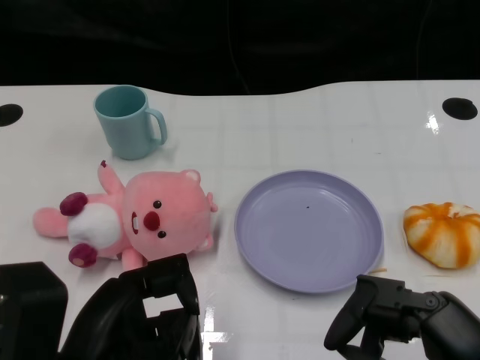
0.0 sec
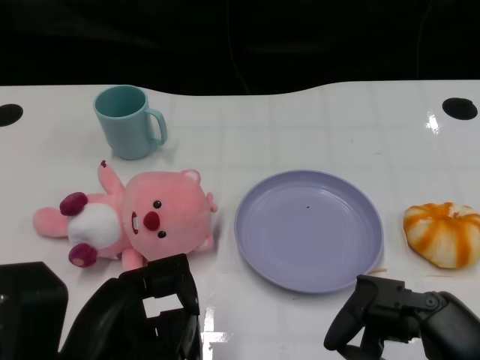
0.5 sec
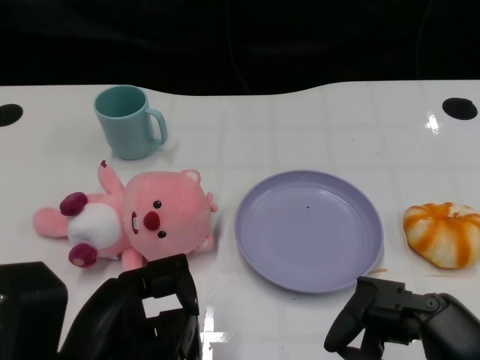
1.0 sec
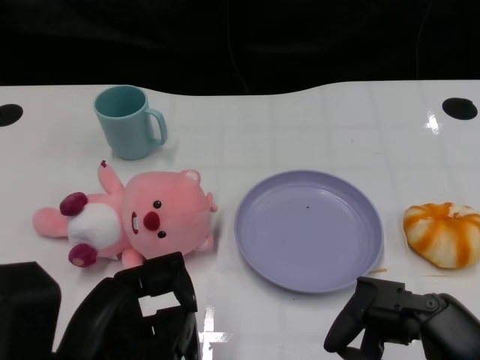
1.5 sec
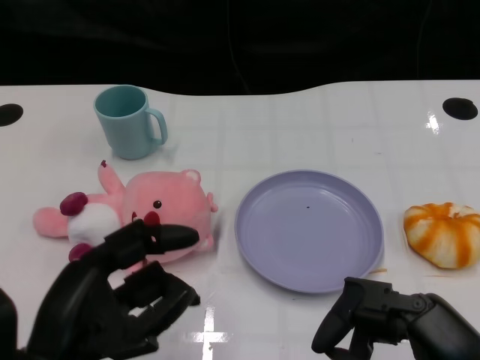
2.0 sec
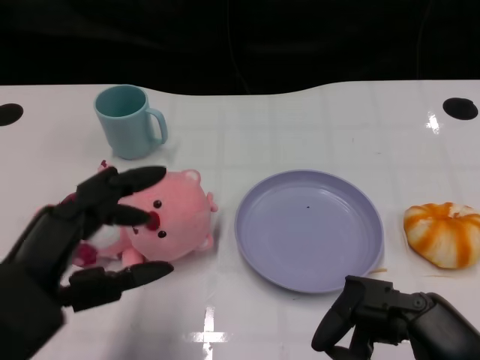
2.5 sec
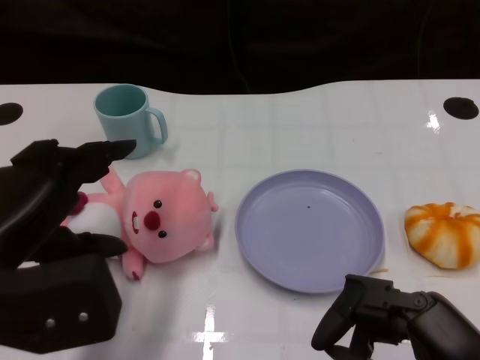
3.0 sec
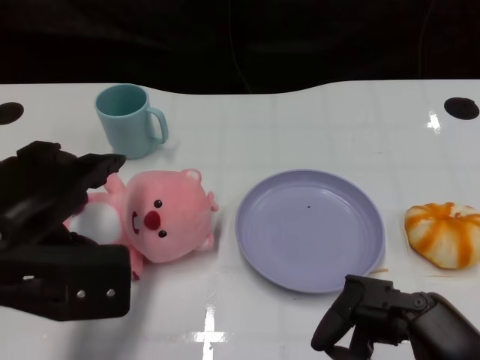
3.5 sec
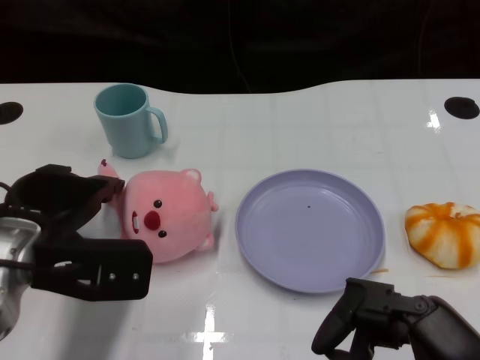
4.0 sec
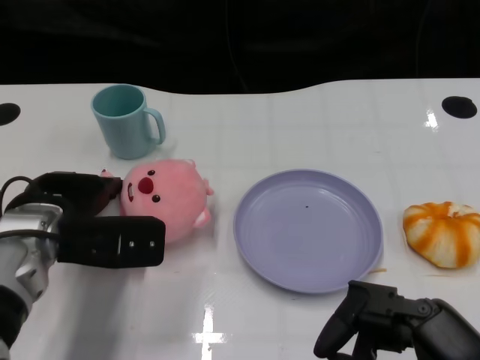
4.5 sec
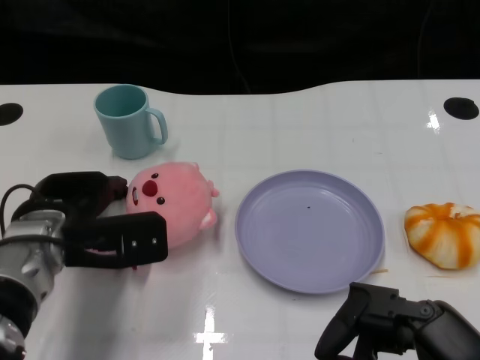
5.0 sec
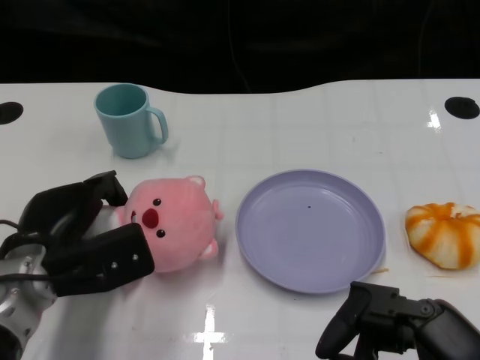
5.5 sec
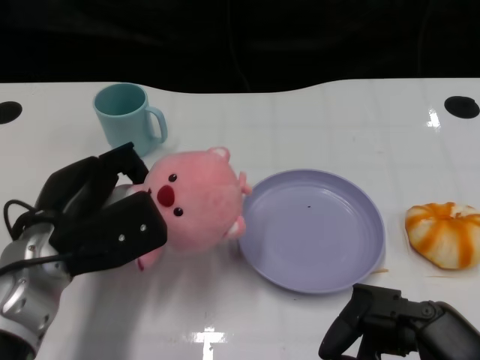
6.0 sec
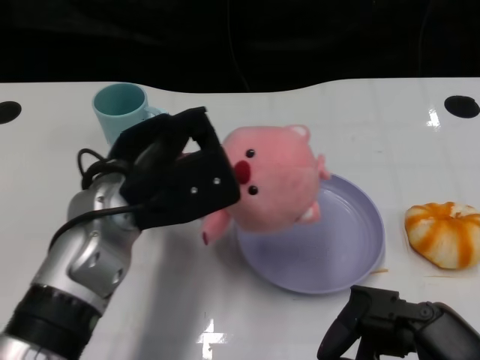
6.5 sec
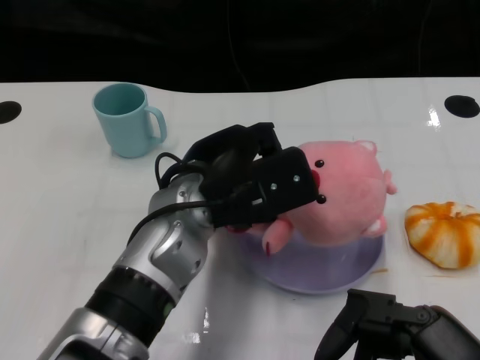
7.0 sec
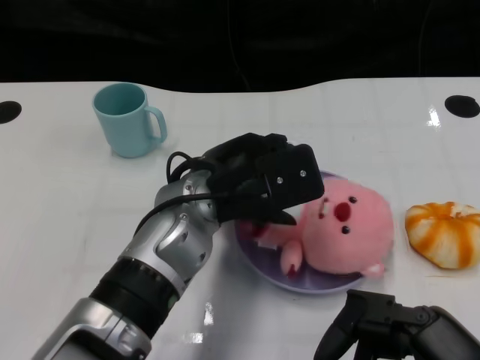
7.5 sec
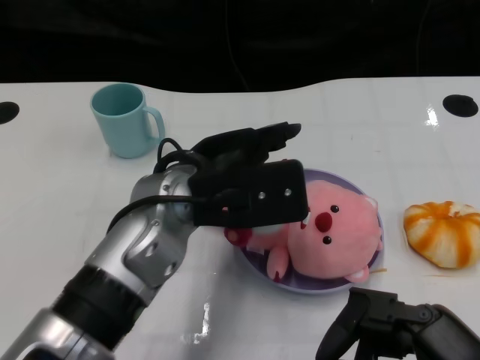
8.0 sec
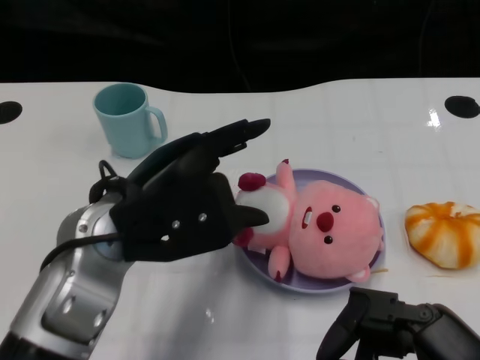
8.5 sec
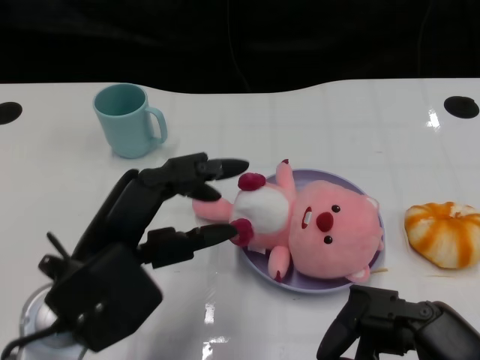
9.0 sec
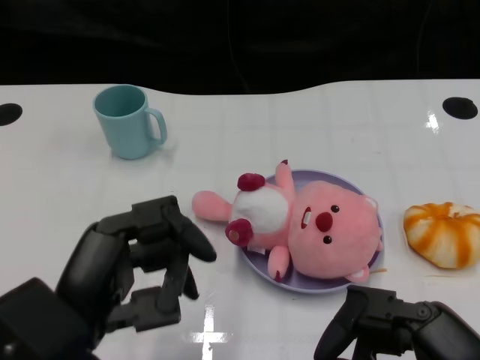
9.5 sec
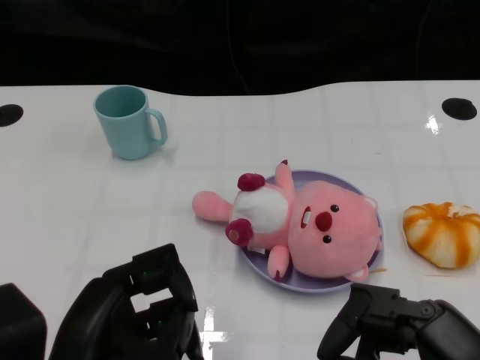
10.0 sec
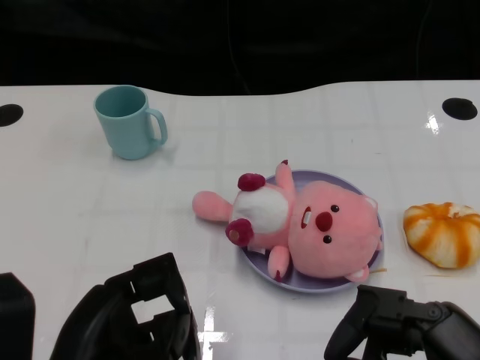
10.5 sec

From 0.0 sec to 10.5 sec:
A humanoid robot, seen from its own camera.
Task of the whole recording: Pick up the doll on one side of the plate and place it into the plate.
Step, from 1.5 sec to 5.5 sec: Grasp the pink doll with the left gripper.
Step, from 6.0 sec to 7.5 sec: Place the pink doll into the plate with the left gripper.
From 2.0 sec to 4.0 sec: The left hand moves forward, approximately 10 cm.
From 4.0 sec to 6.5 sec: The left hand moves to the right, some 10 cm.
From 6.5 sec to 8.5 sec: The left hand moves approximately 10 cm to the right and comes back.
From 8.5 sec to 10.5 sec: The left hand shifts about 15 cm backward and to the left.

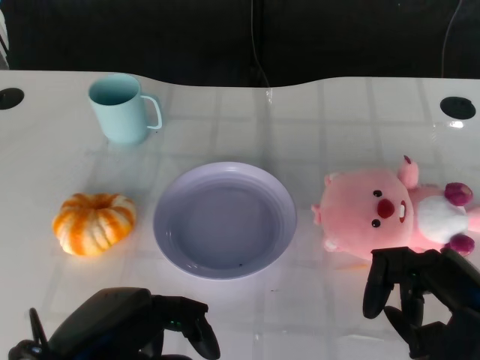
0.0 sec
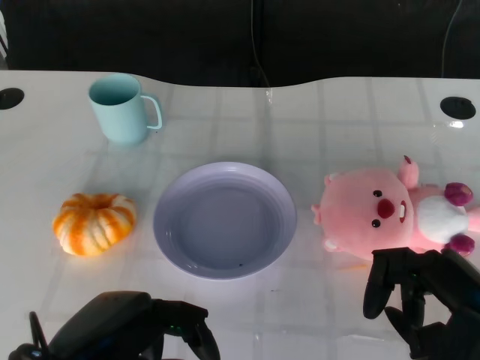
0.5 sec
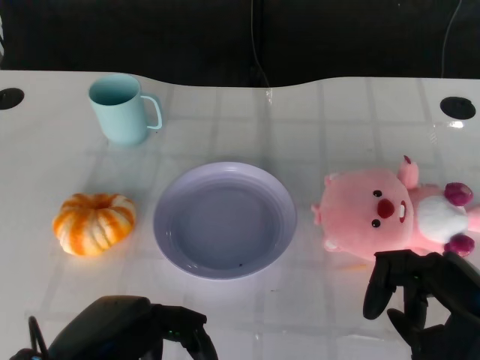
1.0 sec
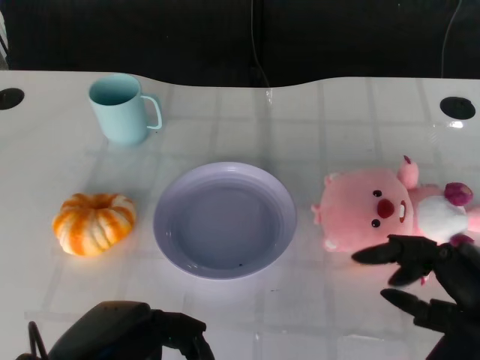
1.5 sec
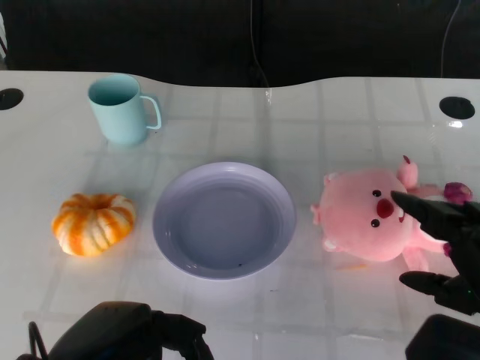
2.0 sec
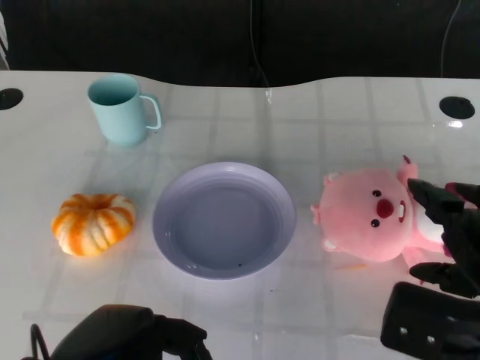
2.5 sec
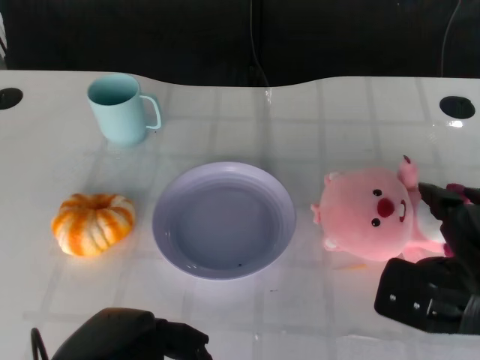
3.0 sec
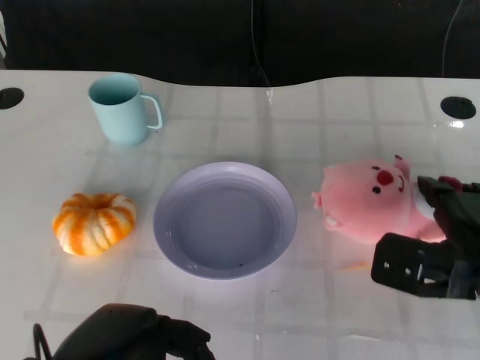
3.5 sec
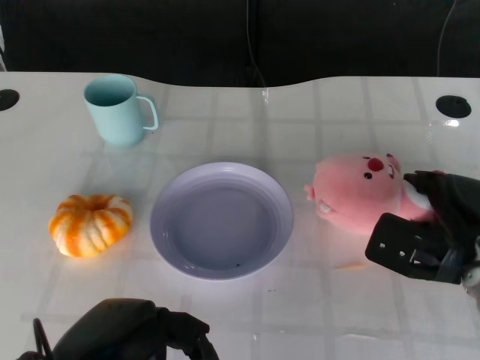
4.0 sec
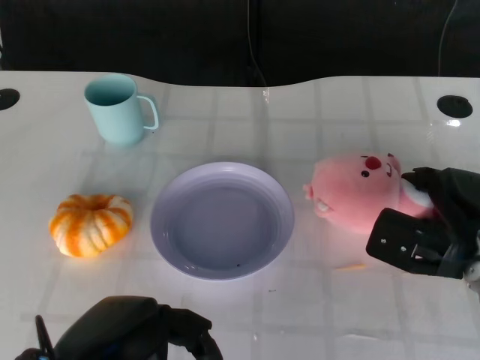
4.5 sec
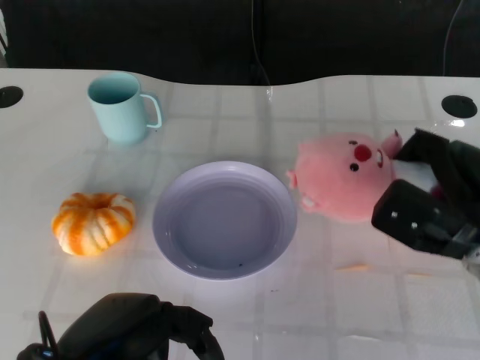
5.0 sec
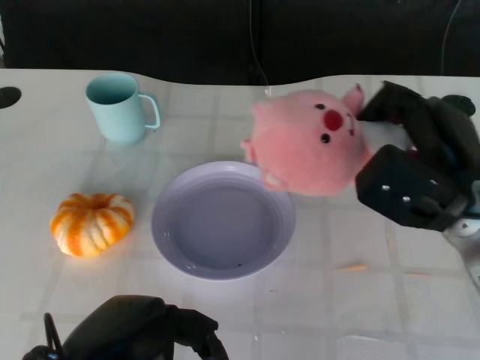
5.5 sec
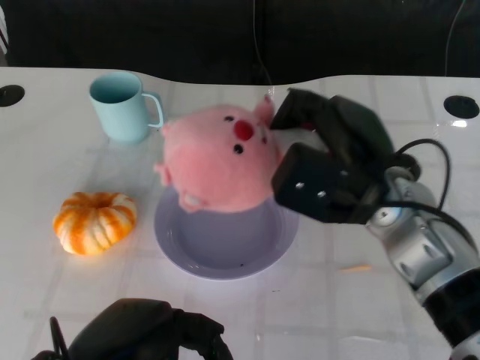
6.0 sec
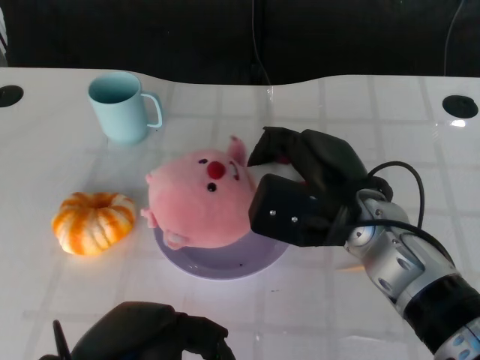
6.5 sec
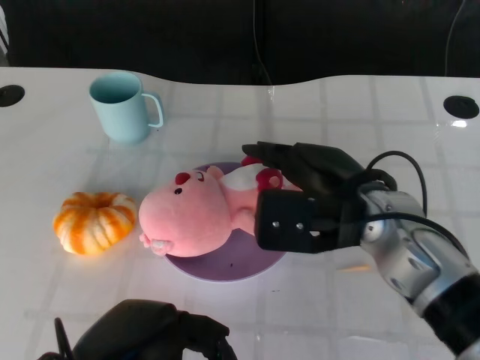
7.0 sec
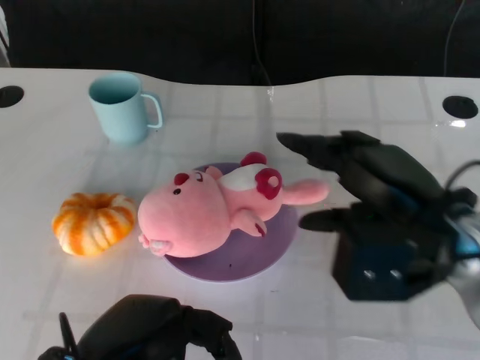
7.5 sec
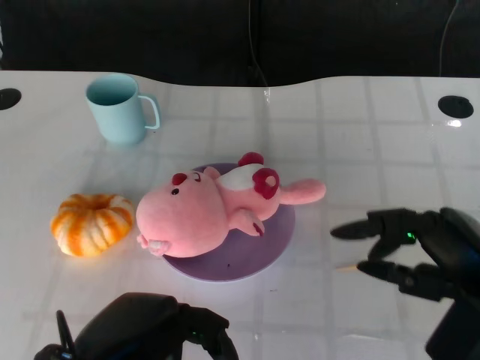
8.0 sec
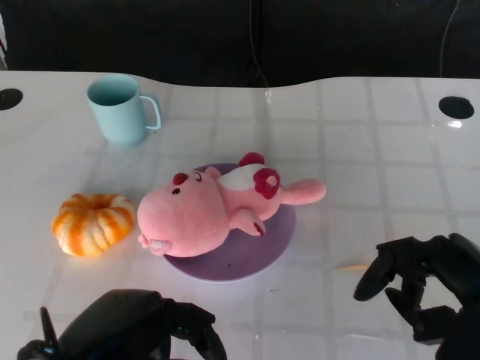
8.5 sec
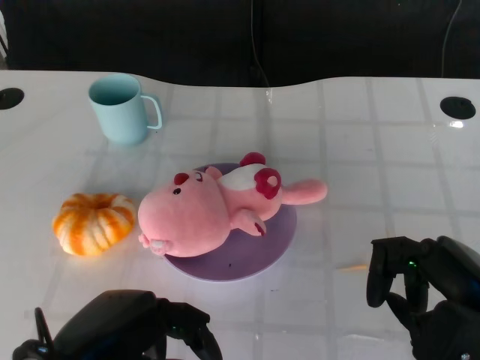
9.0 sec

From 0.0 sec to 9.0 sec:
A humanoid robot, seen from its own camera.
Task of the whole recording: Pick up the doll on the other side of the plate and place it into the plate.
Step, from 1.5 sec to 5.5 sec: Grasp the pink doll with the right gripper.
Step, from 6.0 sec to 7.0 sec: Place the pink doll into the plate with the right gripper.
From 2.0 sec to 4.5 sec: The right hand shifts roughly 15 cm forward and downward.
From 4.5 sec to 7.0 sec: The right hand travels to the left and upward by some 15 cm.
From 7.0 sec to 9.0 sec: The right hand travels to the right and backward by some 15 cm.

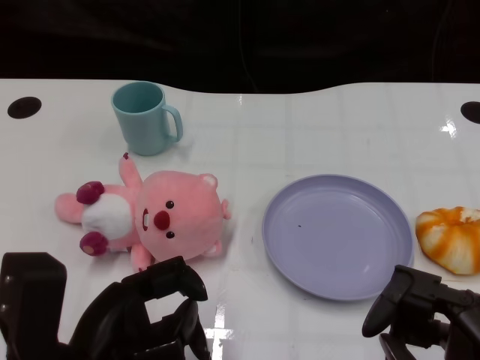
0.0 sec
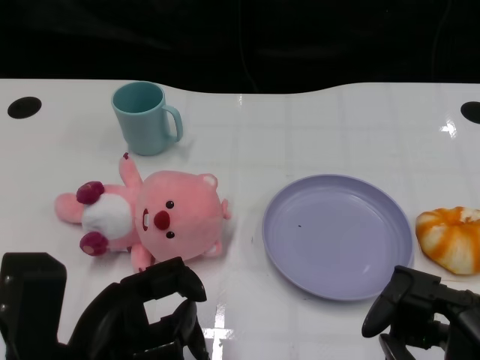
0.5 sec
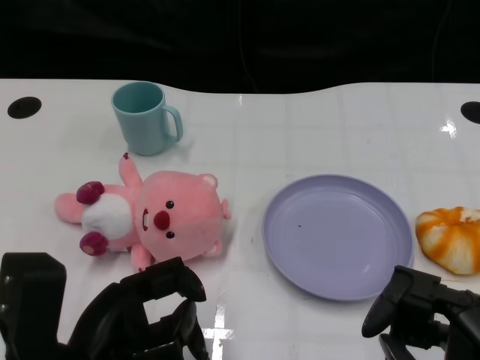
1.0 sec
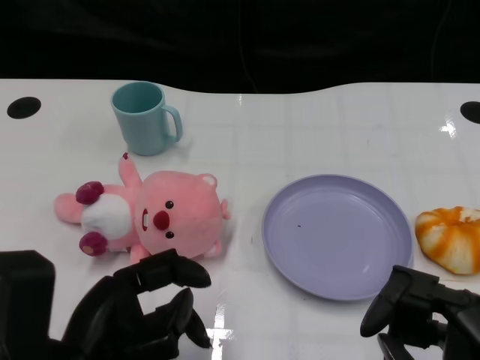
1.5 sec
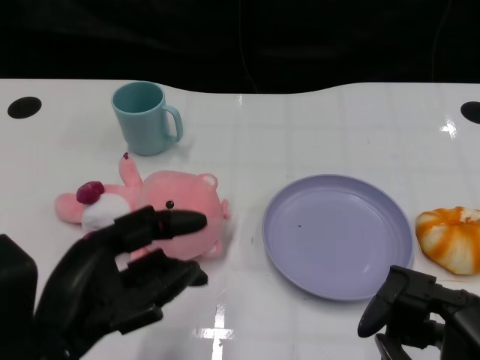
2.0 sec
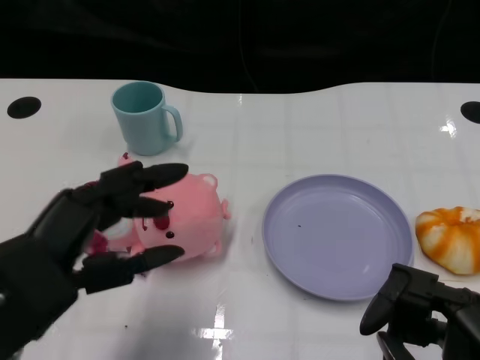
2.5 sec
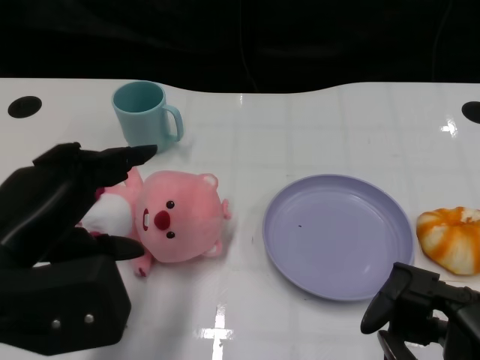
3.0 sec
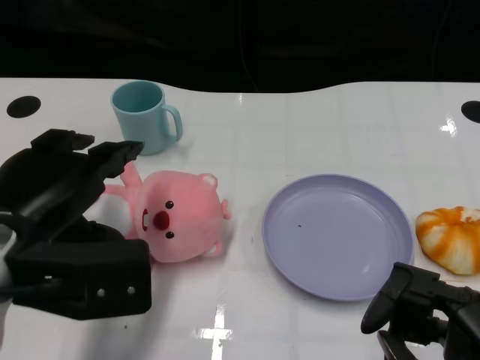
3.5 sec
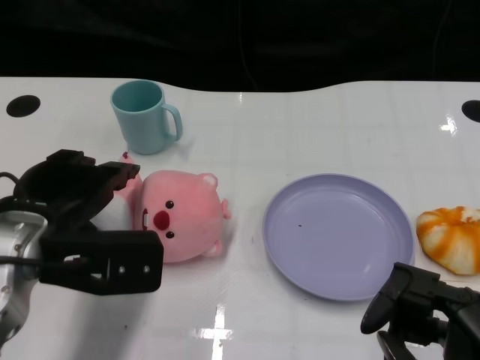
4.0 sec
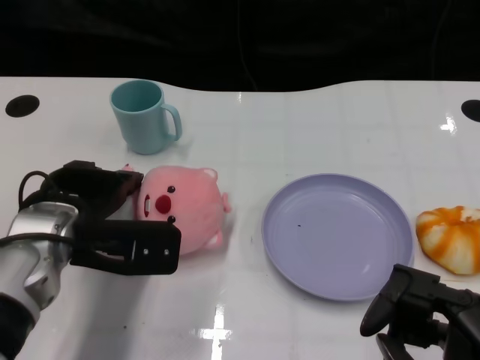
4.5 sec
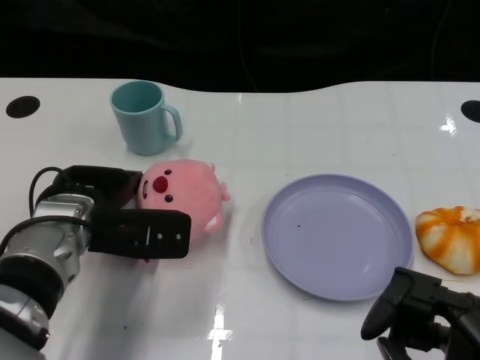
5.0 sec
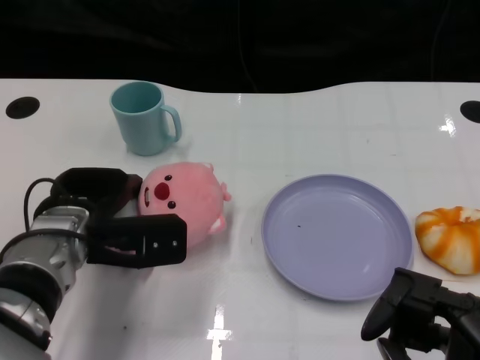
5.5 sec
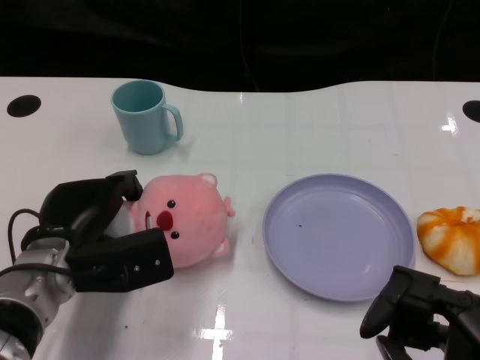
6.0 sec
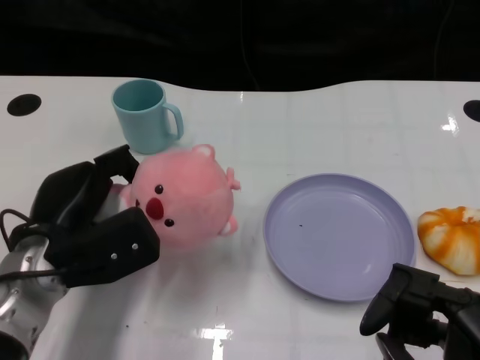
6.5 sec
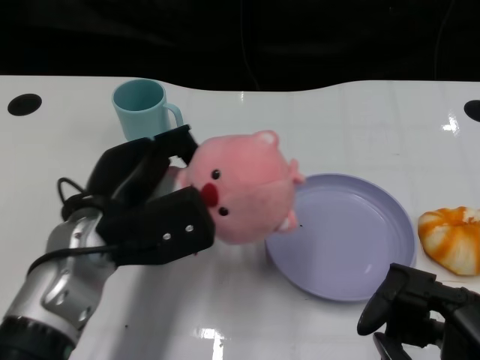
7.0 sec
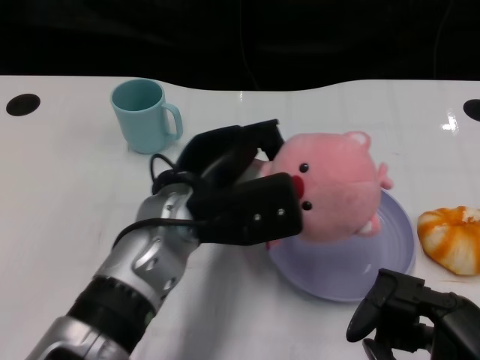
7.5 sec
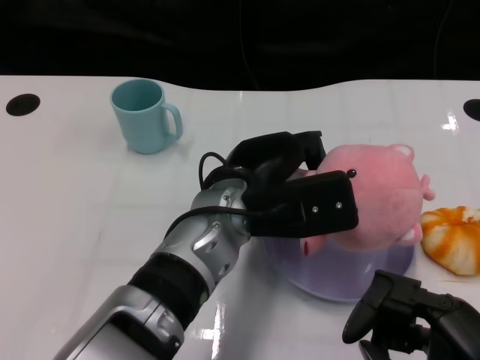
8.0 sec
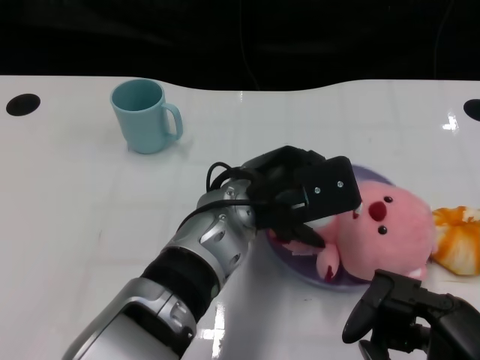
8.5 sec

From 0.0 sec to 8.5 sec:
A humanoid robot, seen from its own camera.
Task of the whole recording: Pick up the doll on one side of the plate and place it into the plate.
Step, from 1.5 sec to 6.0 sec: Grasp the pink doll with the left gripper.
From 2.0 sec to 4.0 sec: The left hand moves forward, approximately 10 cm.
From 4.0 sec to 6.5 sec: The left hand heads downward, covering about 5 cm.
From 6.5 sec to 8.5 sec: The left hand goes roughly 20 cm to the right.
